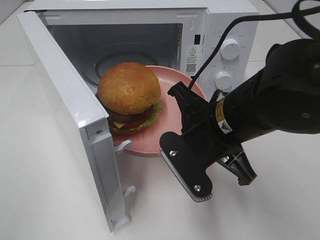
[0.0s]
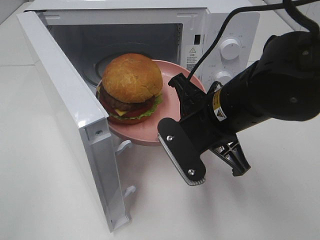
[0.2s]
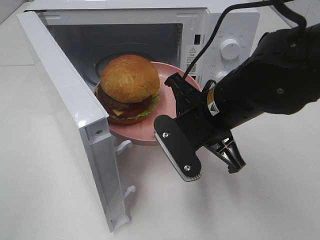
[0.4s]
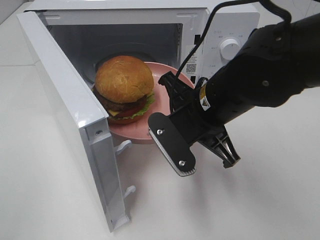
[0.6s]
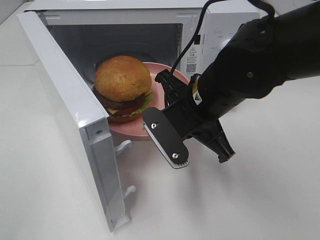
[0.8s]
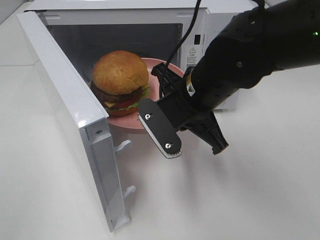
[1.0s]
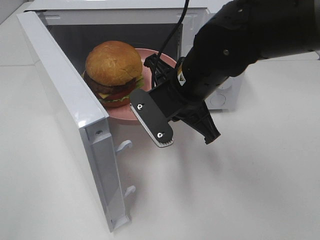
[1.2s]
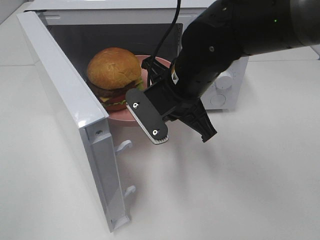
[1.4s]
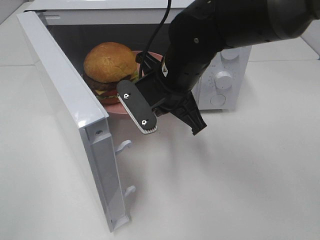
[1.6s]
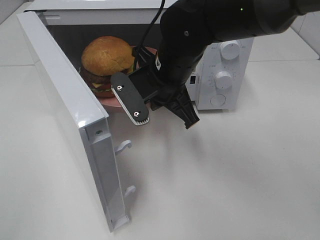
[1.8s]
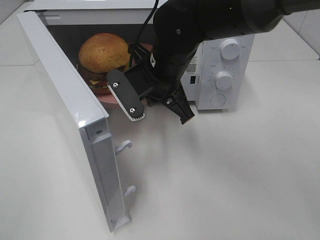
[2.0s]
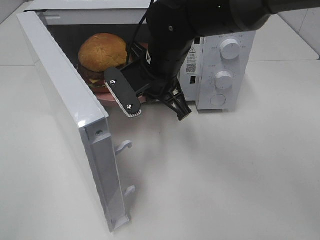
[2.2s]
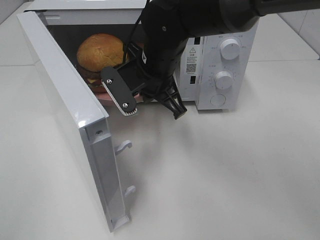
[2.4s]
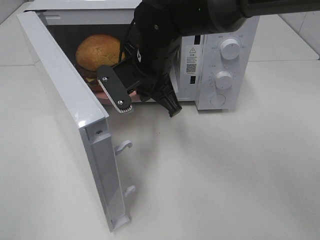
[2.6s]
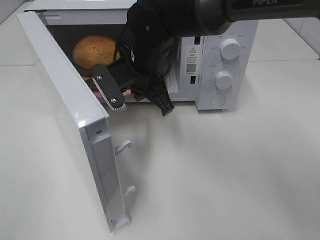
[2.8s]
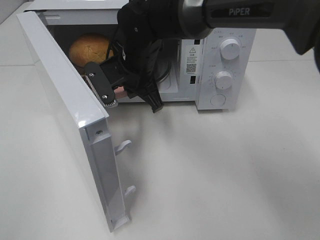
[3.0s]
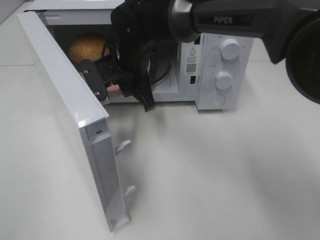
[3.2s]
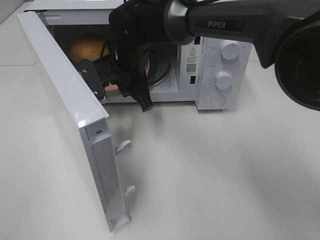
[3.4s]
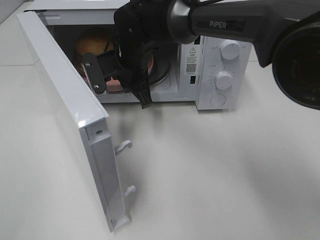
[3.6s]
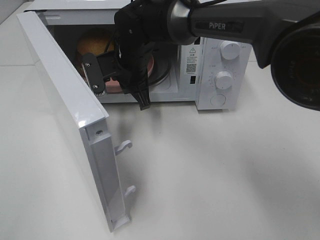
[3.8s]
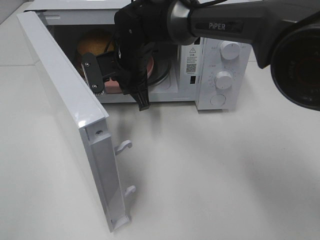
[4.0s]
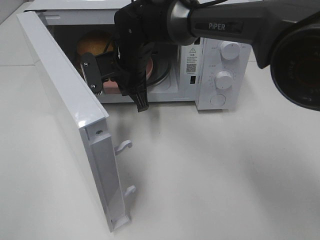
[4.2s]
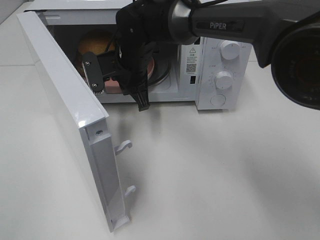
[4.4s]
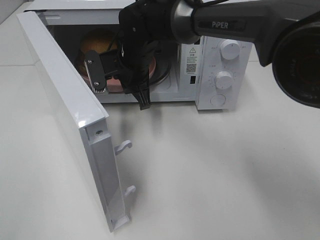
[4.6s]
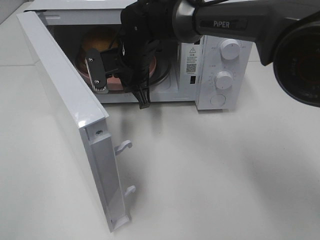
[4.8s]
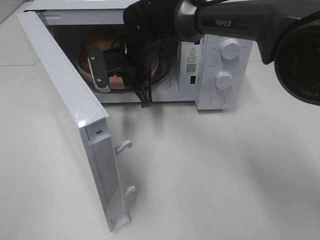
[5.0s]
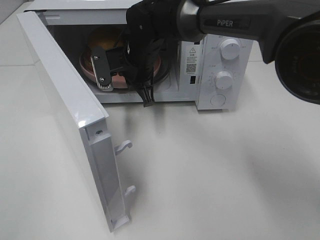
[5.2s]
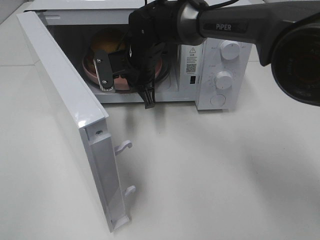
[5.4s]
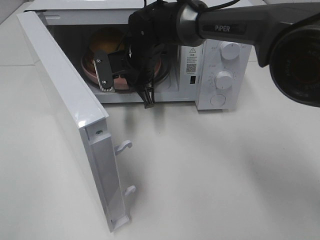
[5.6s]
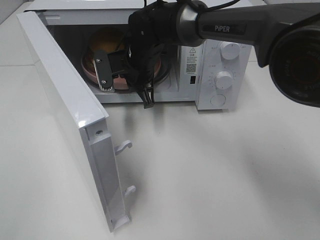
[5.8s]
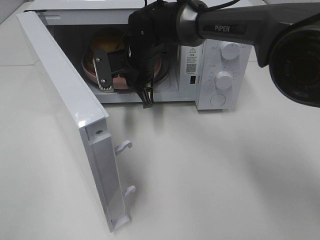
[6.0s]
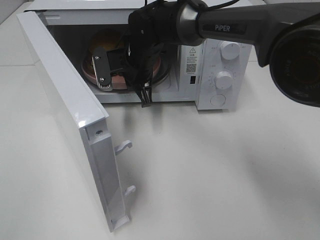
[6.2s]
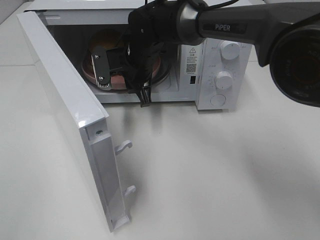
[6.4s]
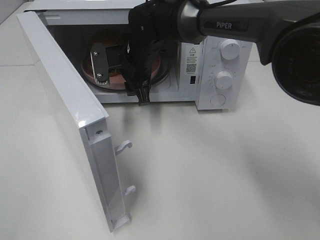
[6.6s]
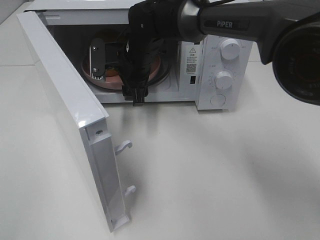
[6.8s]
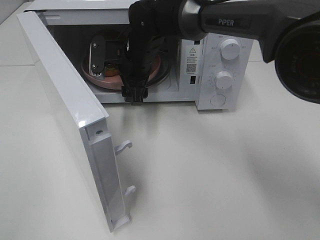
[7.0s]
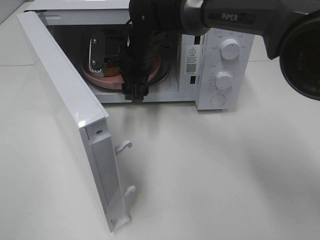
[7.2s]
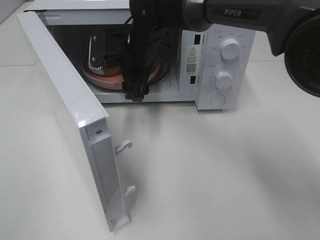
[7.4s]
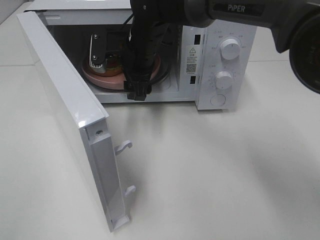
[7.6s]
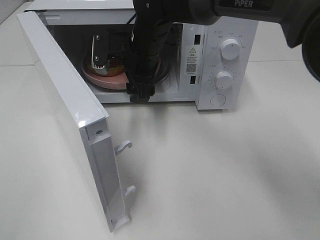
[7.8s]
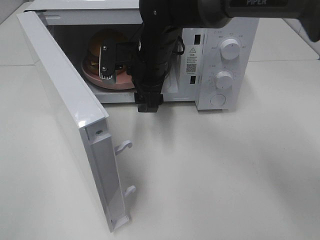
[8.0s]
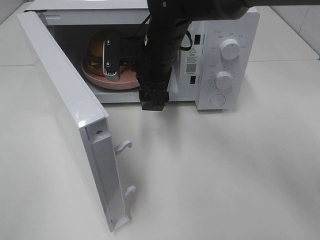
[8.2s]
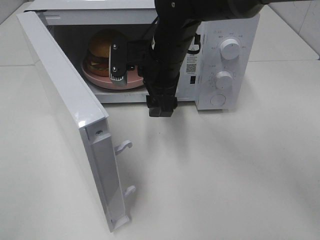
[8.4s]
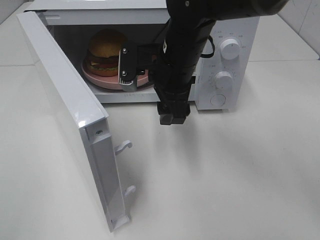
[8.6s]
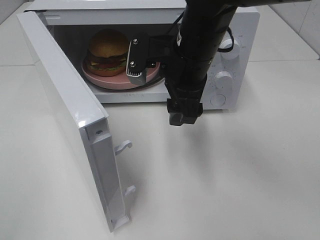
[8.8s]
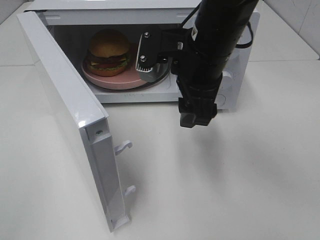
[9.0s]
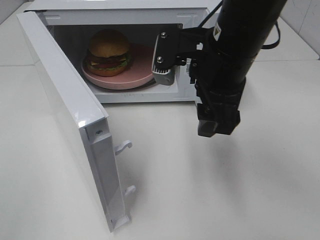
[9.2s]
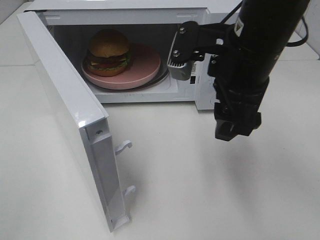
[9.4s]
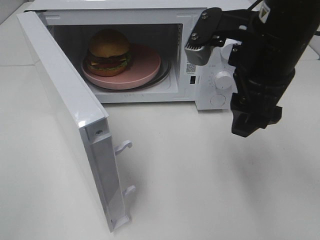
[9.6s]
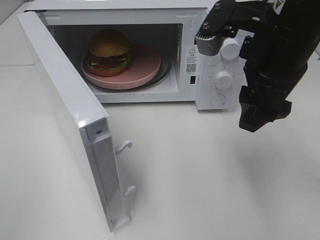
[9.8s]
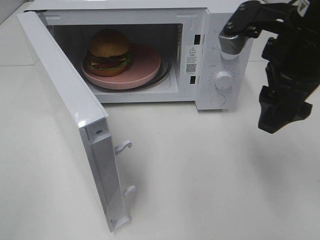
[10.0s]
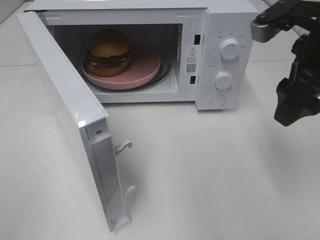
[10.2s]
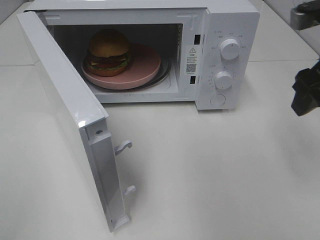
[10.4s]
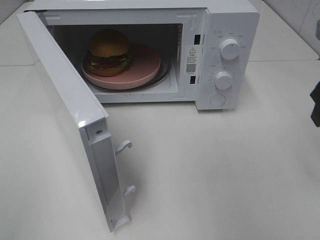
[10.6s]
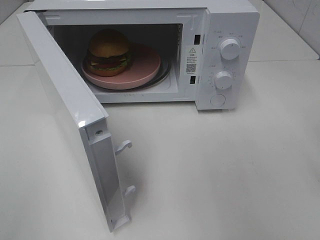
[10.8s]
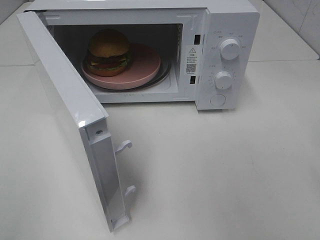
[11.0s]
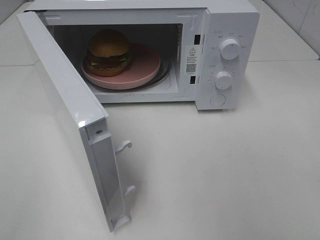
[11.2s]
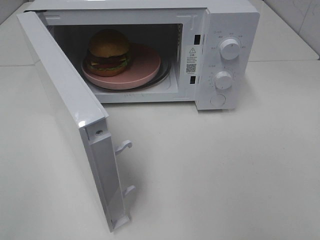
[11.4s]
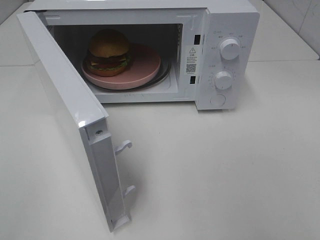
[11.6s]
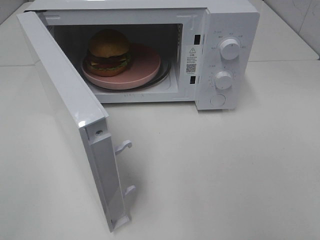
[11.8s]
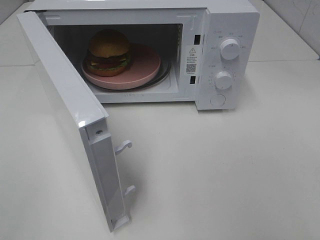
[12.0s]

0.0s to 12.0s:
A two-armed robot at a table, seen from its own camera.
Task of the whole recording: Heat the burger.
Step, 0.0s to 6.2s: Right hand: place the plate in the microwave.
0.0s to 1.6s: The right gripper goes some 10 cm forward and to the left.
1.6s to 3.0s: The right gripper moves forward and to the left, some 10 cm.
3.0s to 6.0s: The grippers make only small movements.
6.0s to 7.6s: The right gripper opens.
7.6s to 9.0s: The right gripper goes some 15 cm backward, to the right and upward.
9.0s to 10.4s: The right gripper heads to the right, covering roughly 20 cm.
10.4s to 12.0s: The right gripper moves backward, approximately 20 cm.

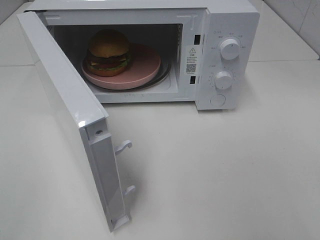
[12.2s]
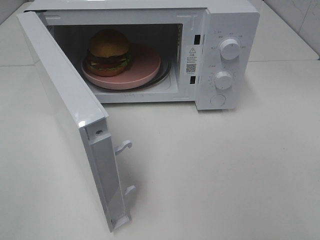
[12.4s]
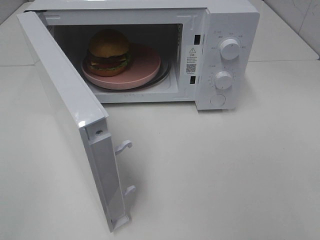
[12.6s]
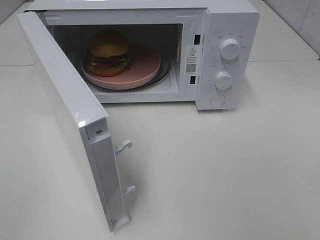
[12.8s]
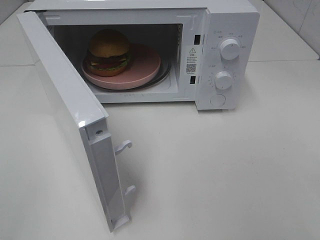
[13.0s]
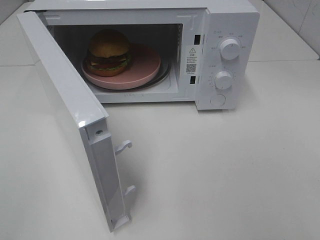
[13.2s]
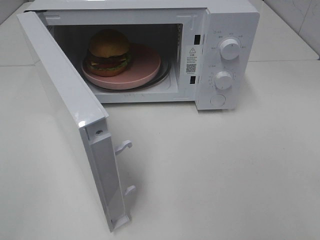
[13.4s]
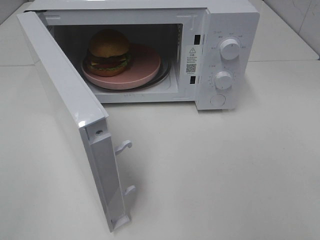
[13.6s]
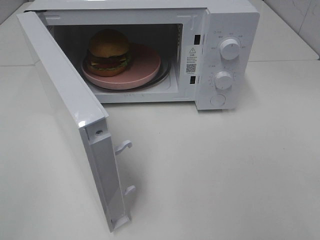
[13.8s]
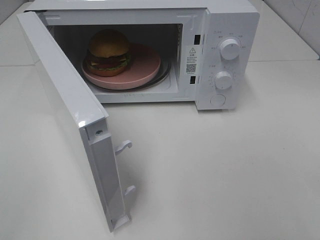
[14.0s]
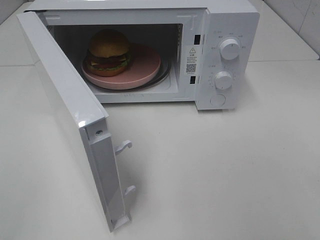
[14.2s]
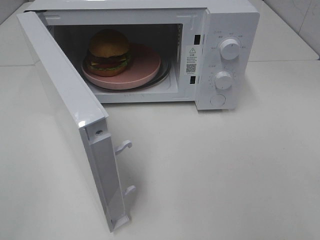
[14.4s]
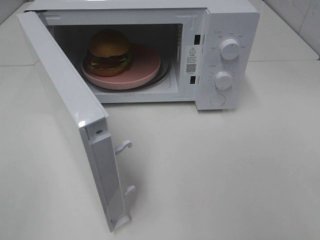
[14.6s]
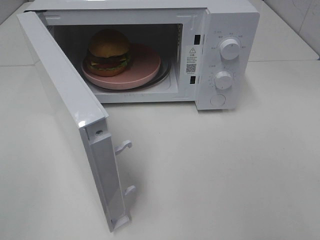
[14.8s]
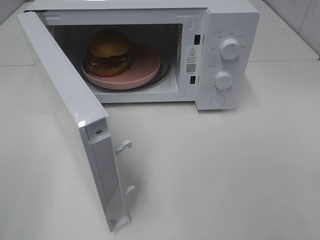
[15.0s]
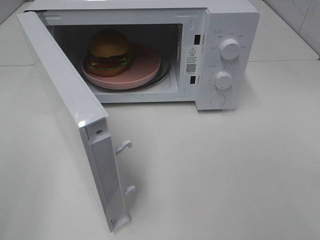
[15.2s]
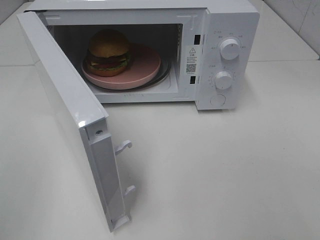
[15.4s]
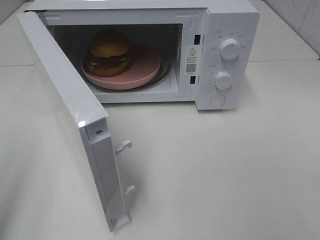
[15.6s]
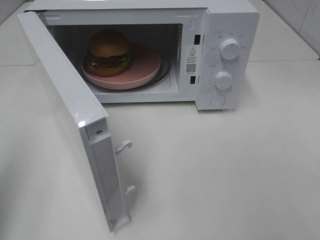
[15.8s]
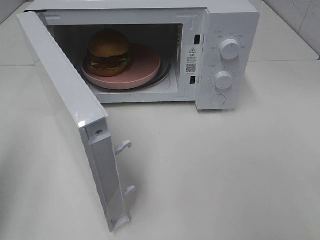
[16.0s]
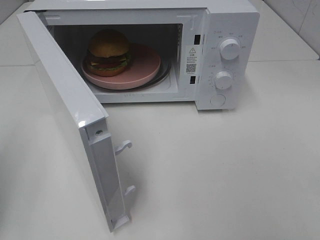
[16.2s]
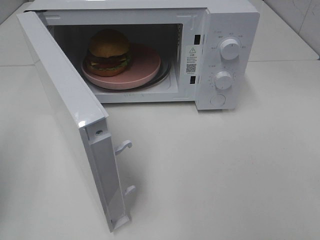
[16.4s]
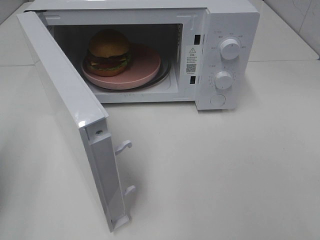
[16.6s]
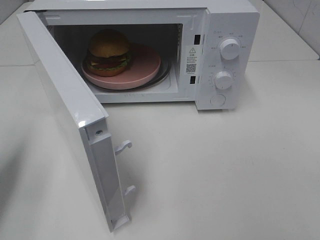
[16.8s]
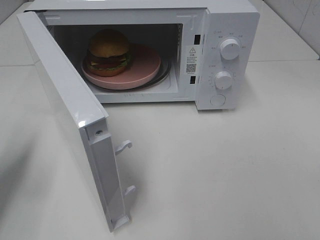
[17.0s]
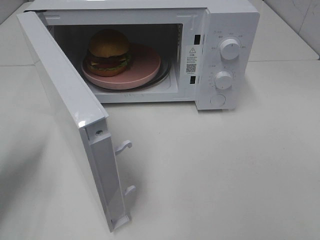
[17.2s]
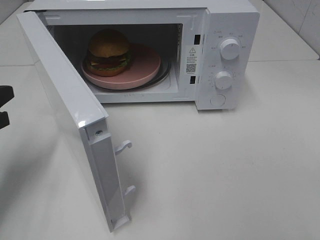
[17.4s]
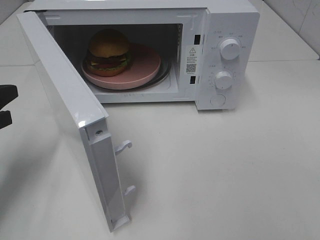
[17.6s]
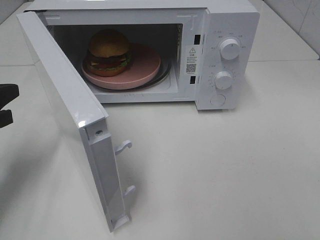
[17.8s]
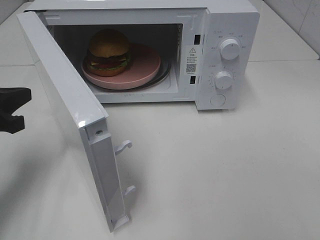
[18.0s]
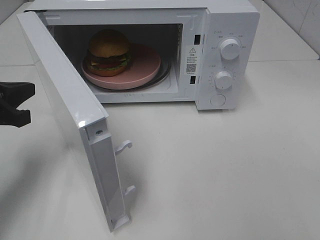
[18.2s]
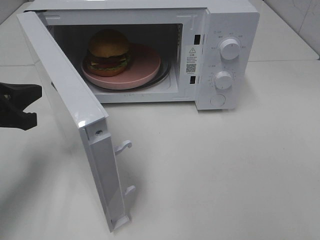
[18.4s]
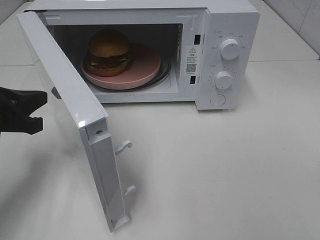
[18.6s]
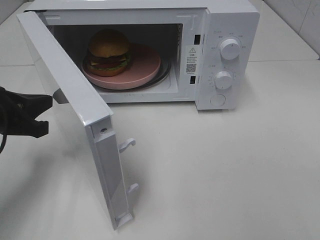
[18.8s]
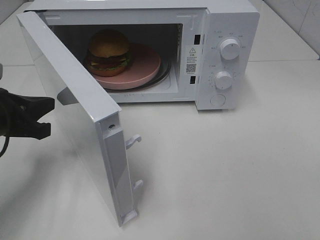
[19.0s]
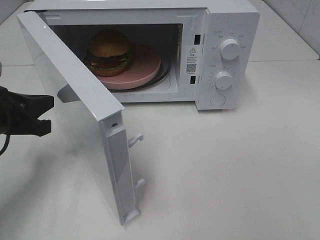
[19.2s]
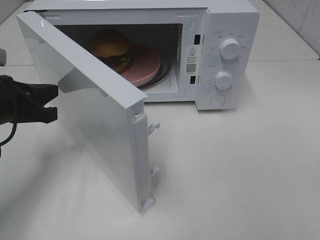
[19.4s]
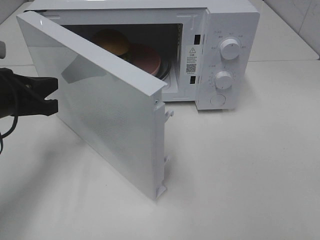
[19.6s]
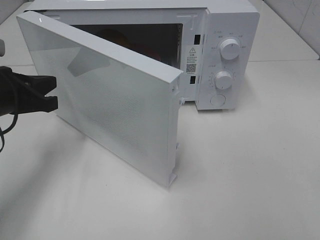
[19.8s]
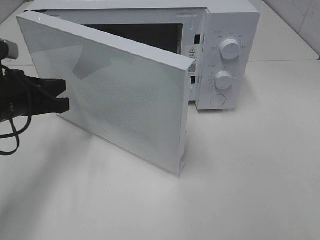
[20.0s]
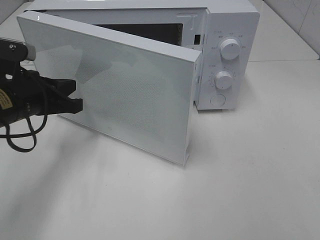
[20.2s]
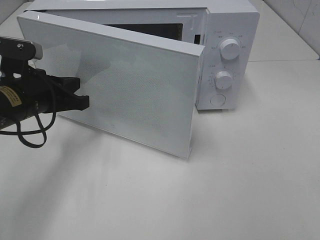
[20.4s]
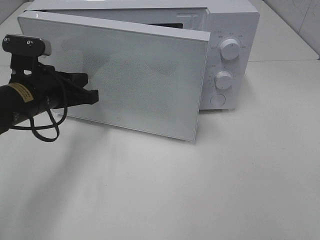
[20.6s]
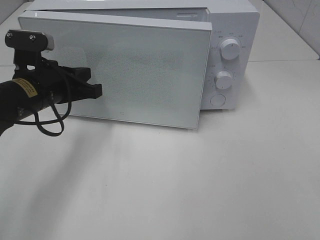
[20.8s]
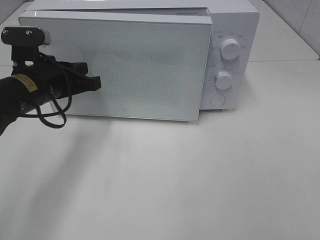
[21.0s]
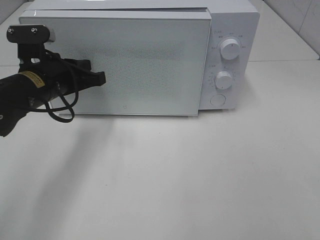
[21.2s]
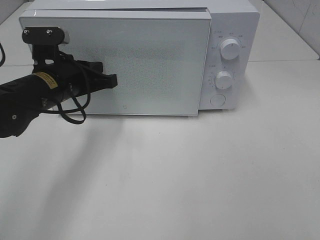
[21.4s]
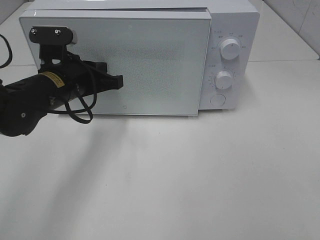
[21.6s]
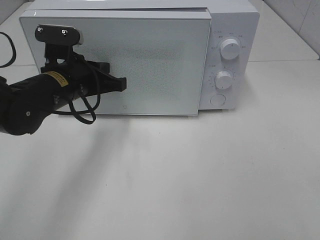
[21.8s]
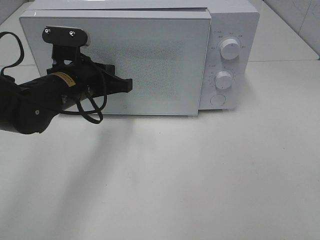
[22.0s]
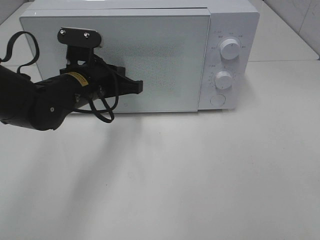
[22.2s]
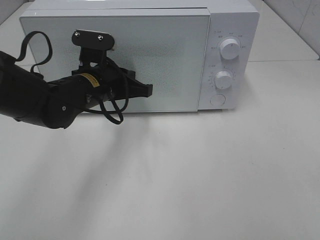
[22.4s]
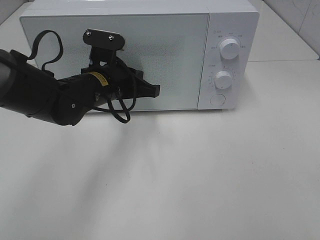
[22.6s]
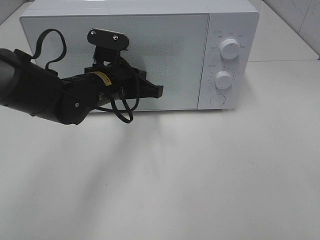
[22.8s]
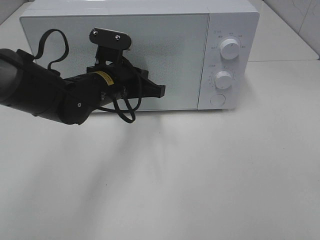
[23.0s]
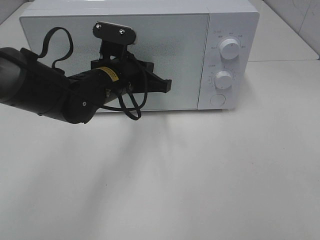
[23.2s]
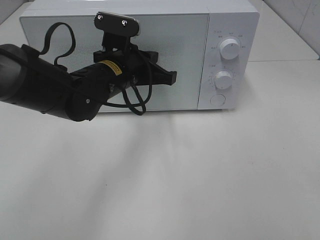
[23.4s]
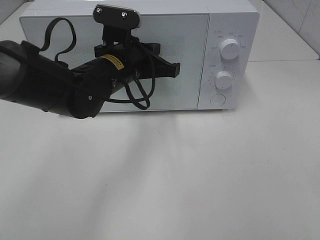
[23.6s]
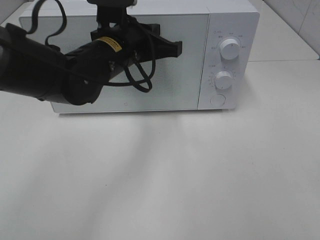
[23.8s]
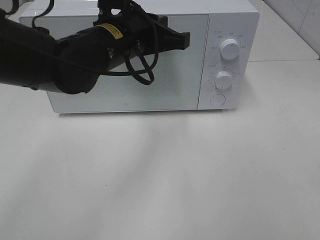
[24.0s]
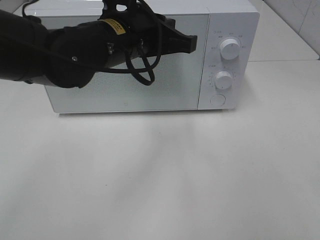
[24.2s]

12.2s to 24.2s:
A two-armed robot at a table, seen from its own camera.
Task of the whole recording: Heat the burger.
Step, 12.2s to 23.0s: Left hand: close the microwave door.
16.6s to 18.2s: The left gripper heads forward and to the right, covering about 10 cm.
19.8s to 21.2s: The left gripper heads to the right, covering about 5 cm.
21.2s to 22.6s: The left gripper is displaced to the right by approximately 10 cm.
22.6s to 24.2s: The left gripper heads upward, to the right and backward, covering roughly 15 cm.
